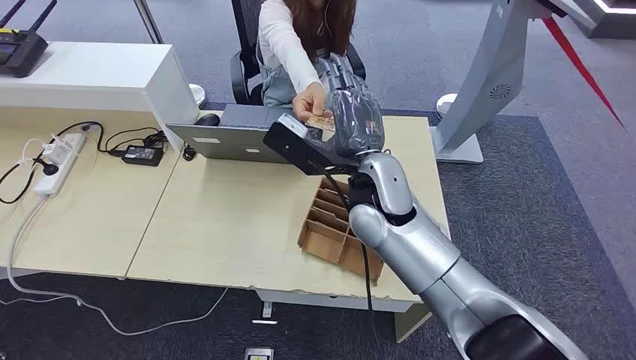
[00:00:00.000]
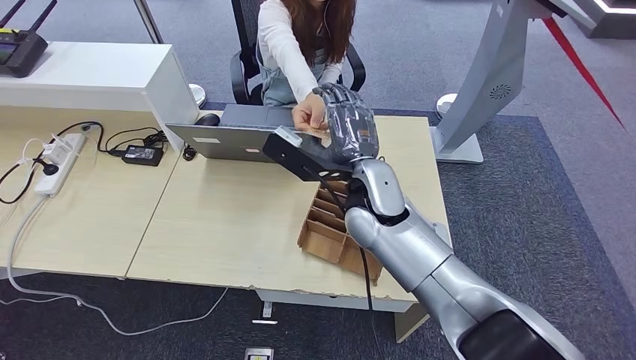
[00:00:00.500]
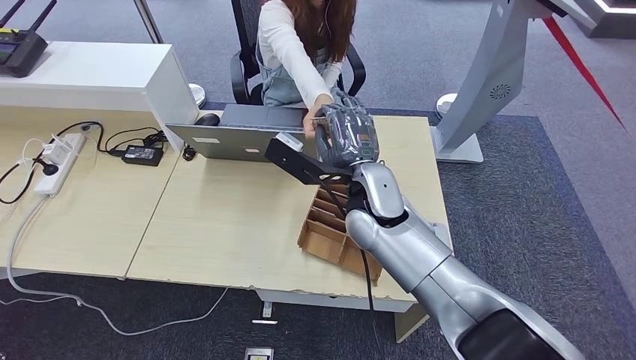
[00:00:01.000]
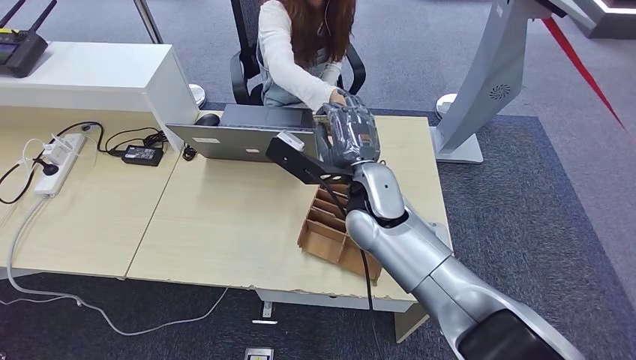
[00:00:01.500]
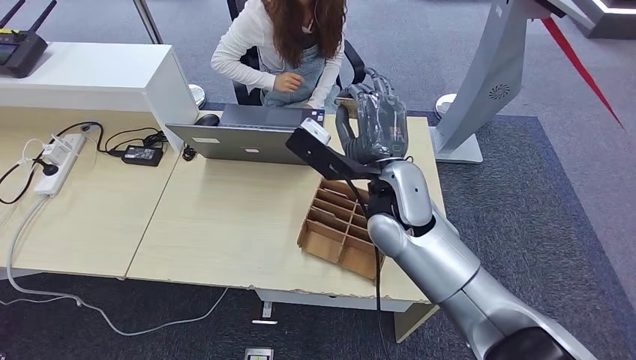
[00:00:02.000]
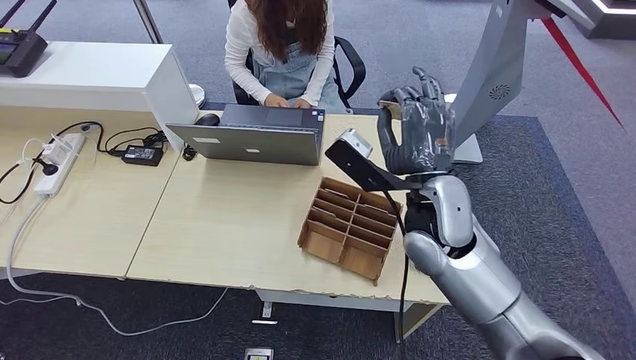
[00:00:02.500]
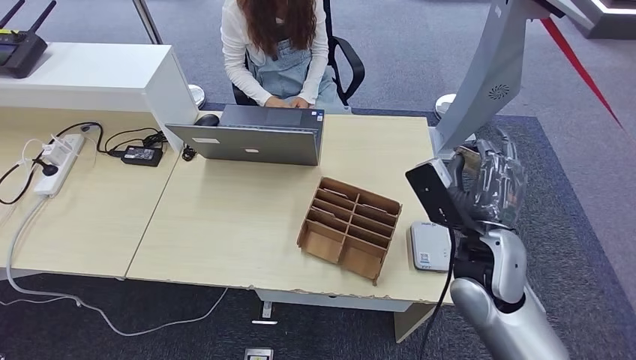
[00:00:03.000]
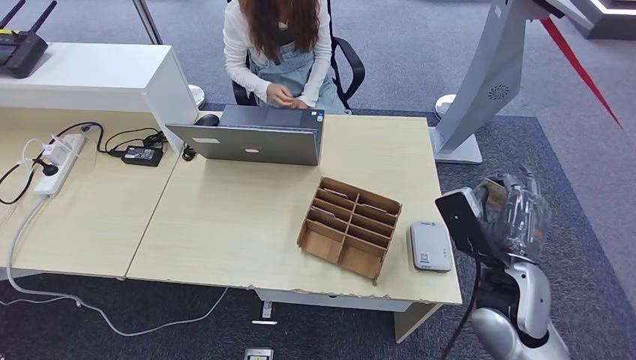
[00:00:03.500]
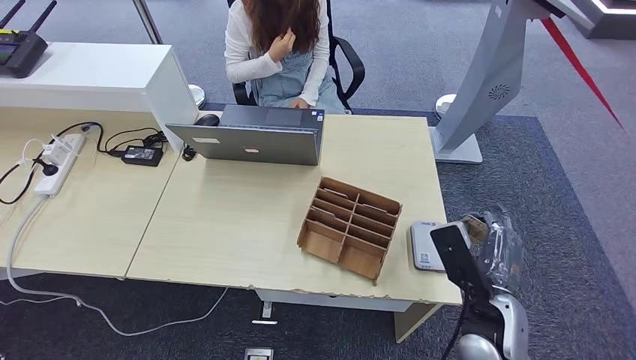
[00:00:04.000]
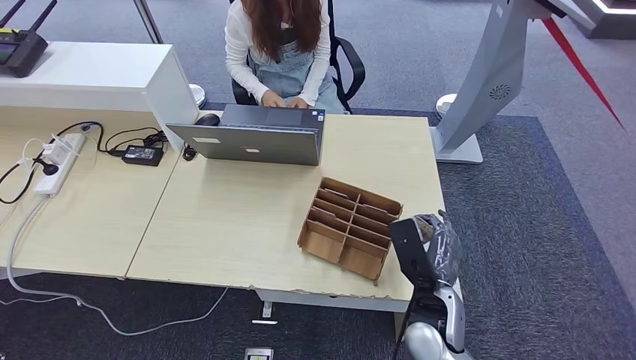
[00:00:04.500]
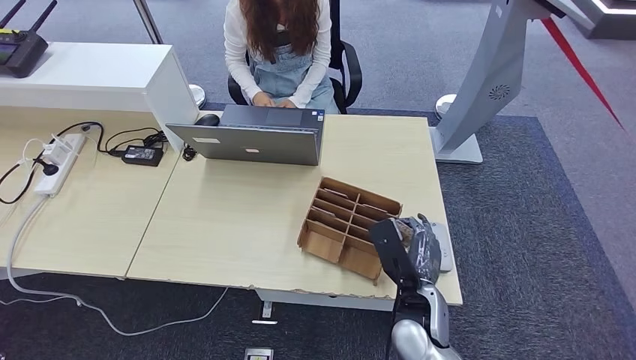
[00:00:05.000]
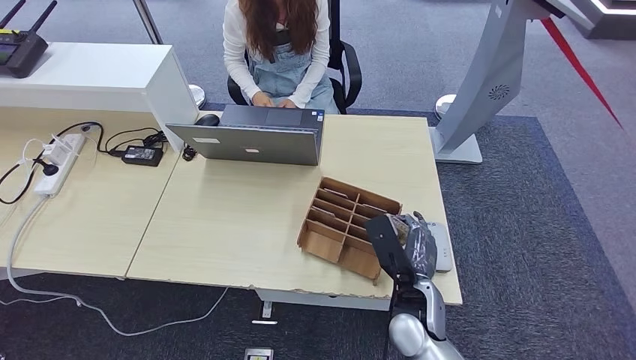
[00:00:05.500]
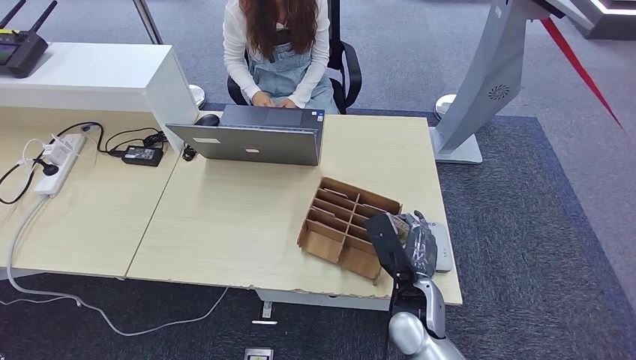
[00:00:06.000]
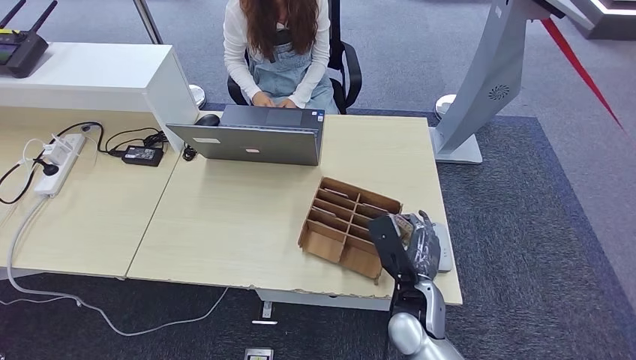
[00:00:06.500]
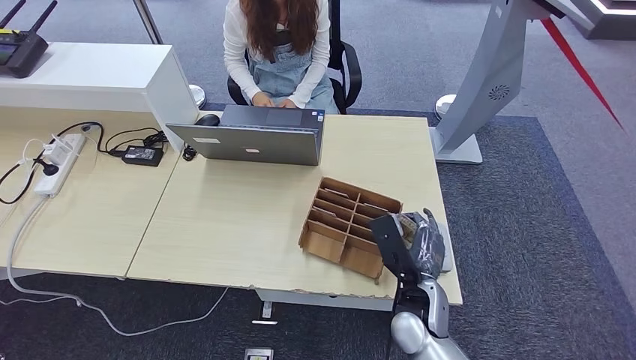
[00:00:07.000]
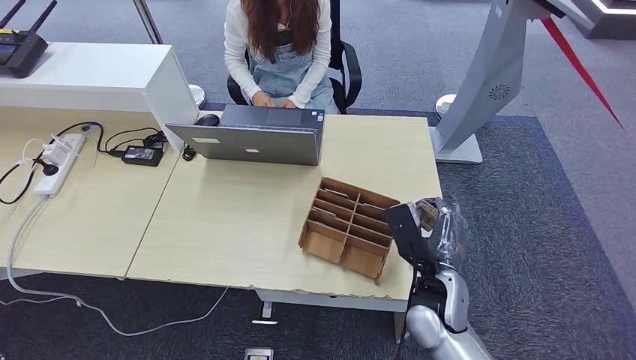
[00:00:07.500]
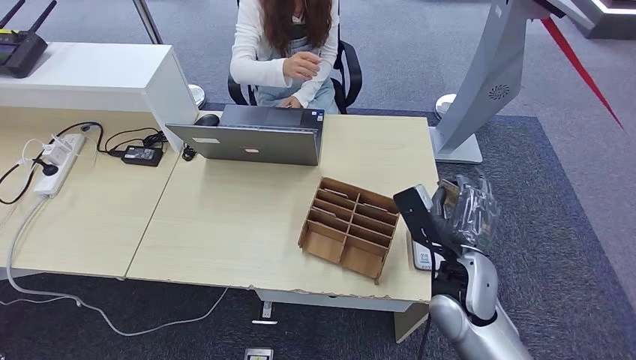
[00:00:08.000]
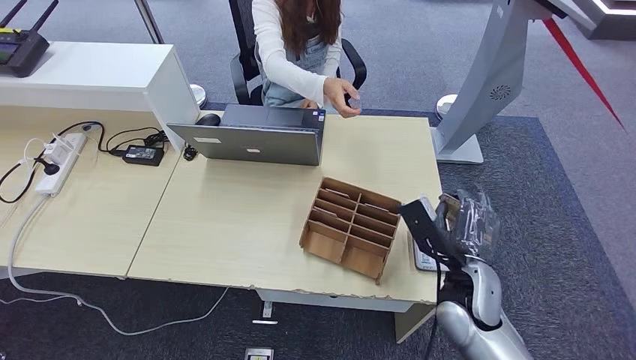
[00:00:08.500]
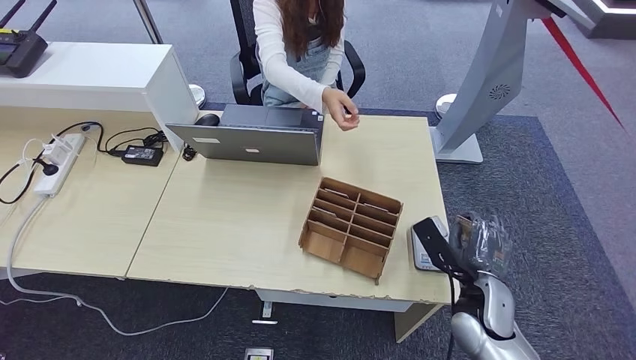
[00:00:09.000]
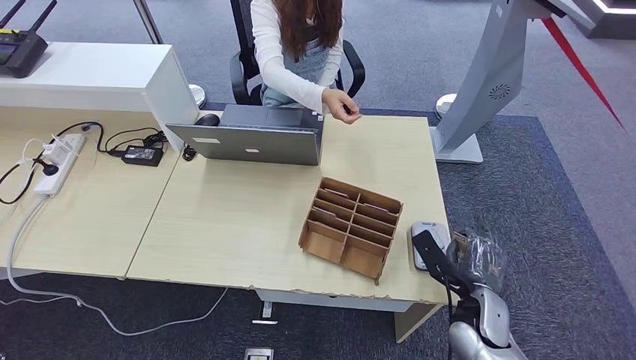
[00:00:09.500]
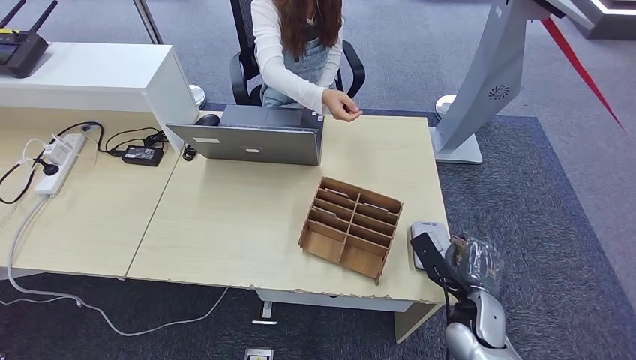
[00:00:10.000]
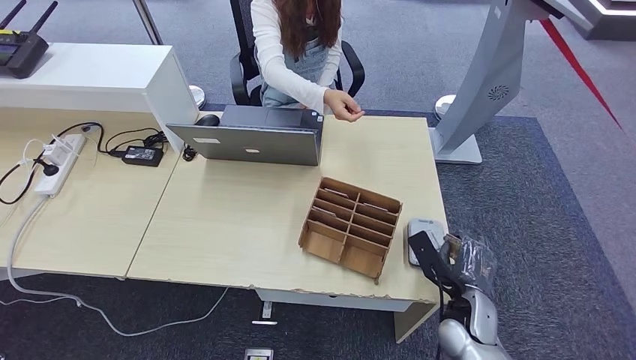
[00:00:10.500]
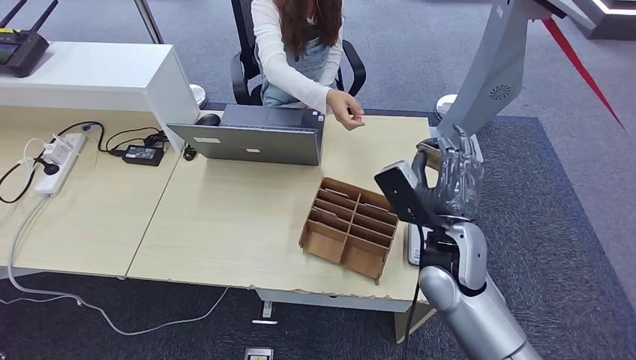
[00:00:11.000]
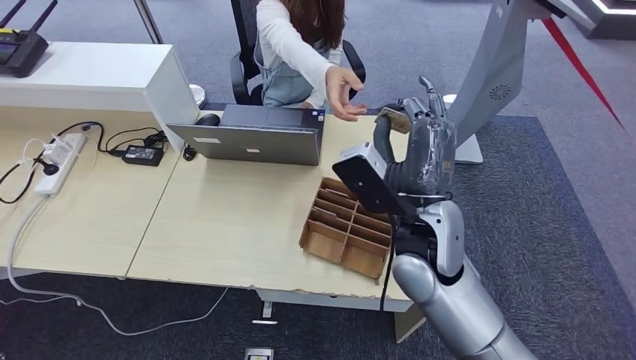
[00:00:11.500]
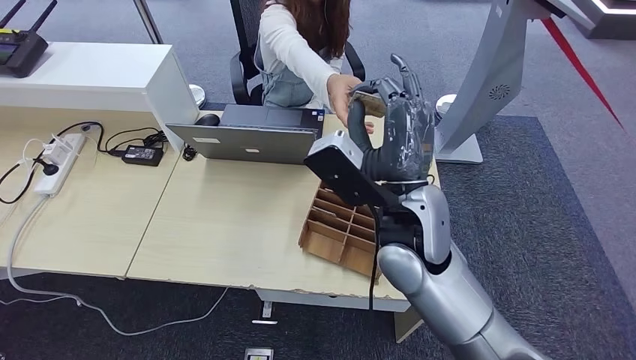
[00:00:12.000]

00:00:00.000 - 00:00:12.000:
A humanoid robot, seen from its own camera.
Step, 00:00:00.000 - 00:00:02.000: Take the ID card from the person's hand.
Step, 00:00:02.500 - 00:00:05.500: Place the ID card on the card reader.
00:00:02.000 - 00:00:04.000: The right hand travels to the right, downward and backward by some 25 cm.
00:00:04.000 - 00:00:06.000: The right hand moves to the left, some 10 cm.
00:00:06.000 - 00:00:08.000: The right hand travels upward and to the right by roughly 10 cm.
00:00:08.000 - 00:00:10.000: The right hand is displaced downward and to the right by approximately 15 cm.
00:00:10.000 - 00:00:12.000: The right hand travels upward and to the left by roughly 30 cm.

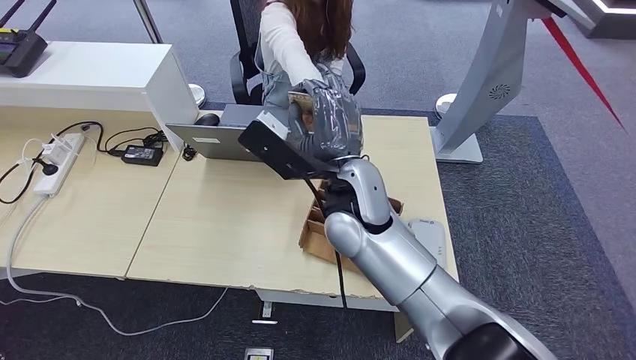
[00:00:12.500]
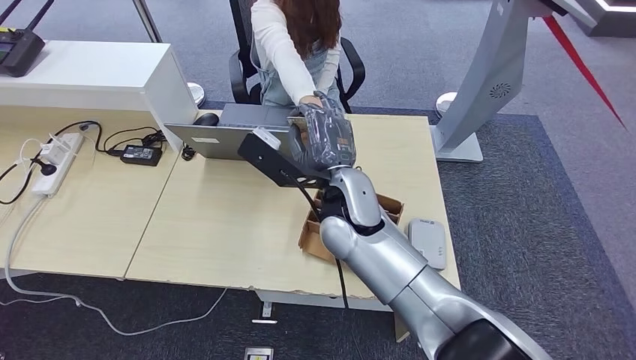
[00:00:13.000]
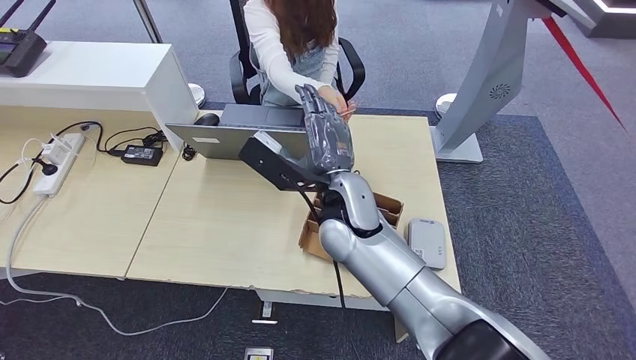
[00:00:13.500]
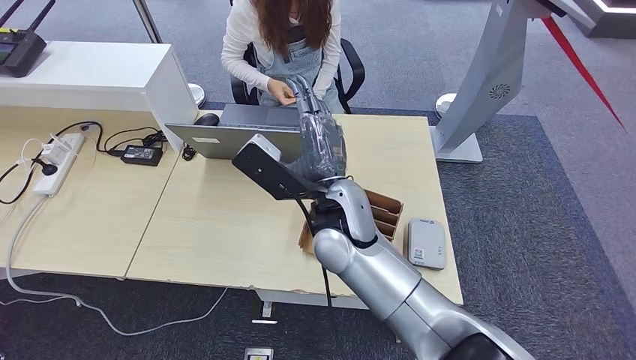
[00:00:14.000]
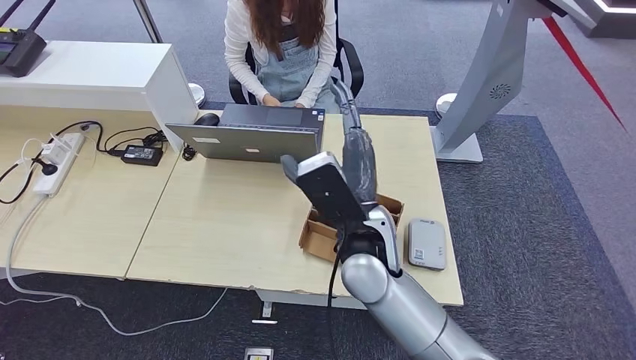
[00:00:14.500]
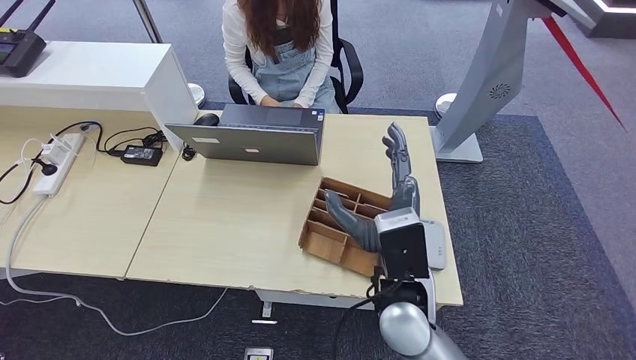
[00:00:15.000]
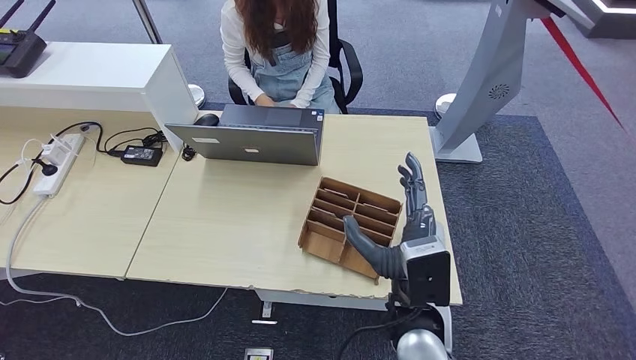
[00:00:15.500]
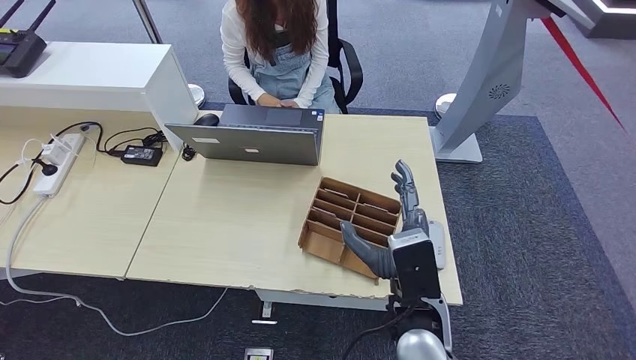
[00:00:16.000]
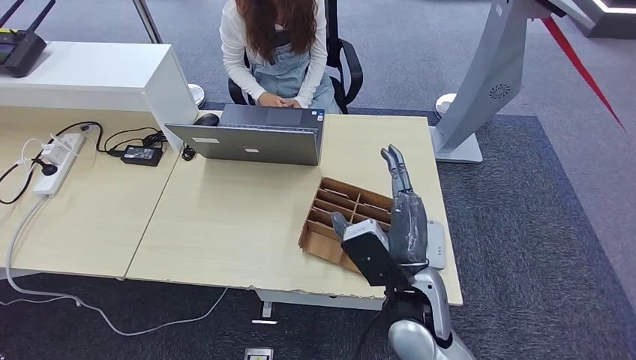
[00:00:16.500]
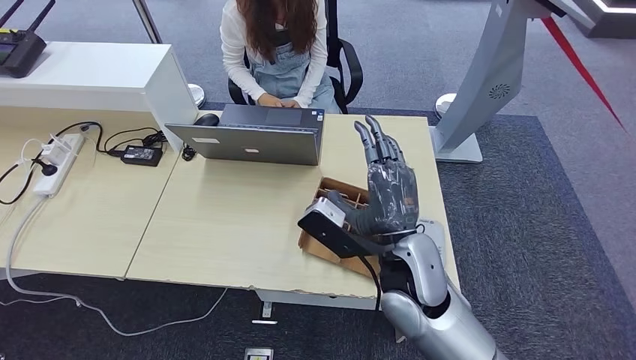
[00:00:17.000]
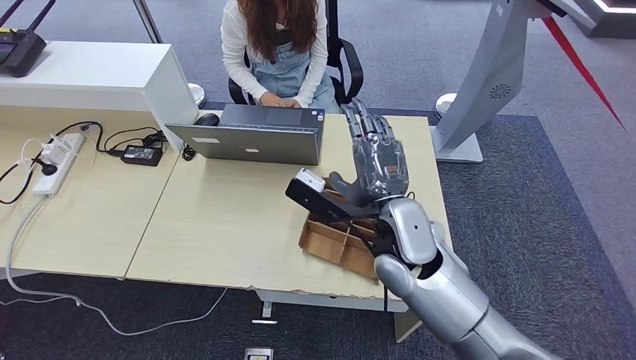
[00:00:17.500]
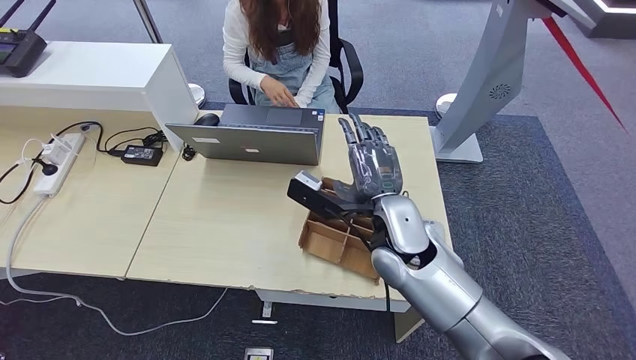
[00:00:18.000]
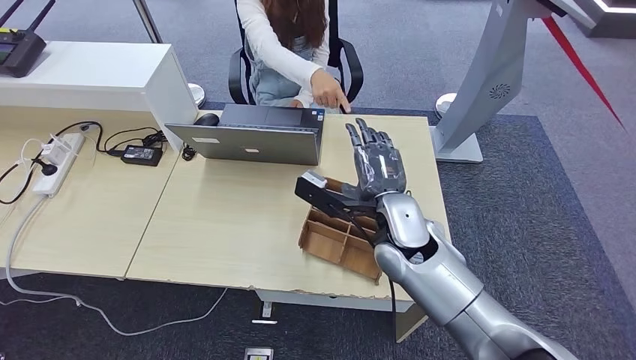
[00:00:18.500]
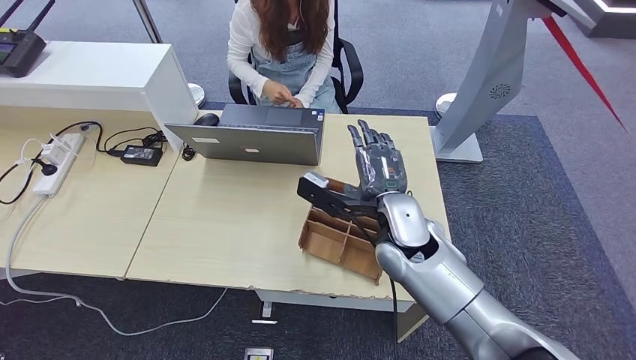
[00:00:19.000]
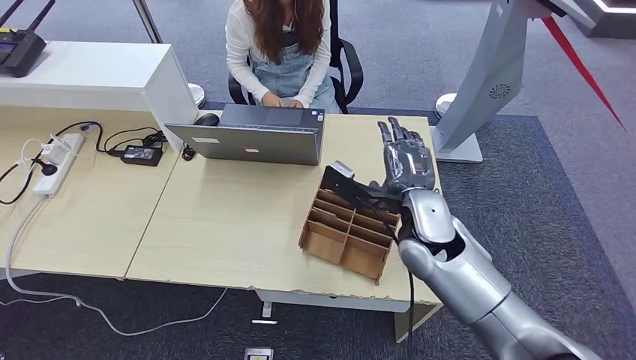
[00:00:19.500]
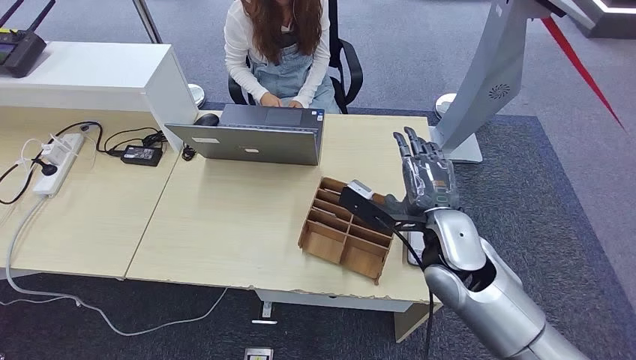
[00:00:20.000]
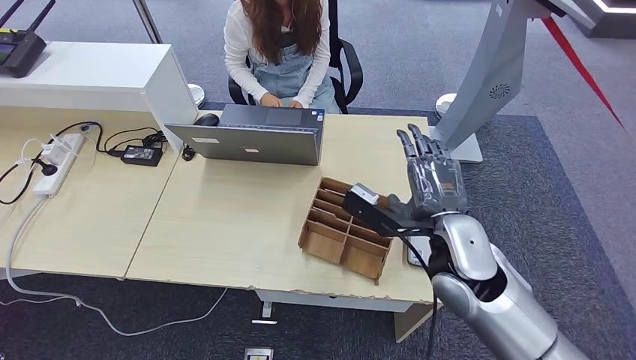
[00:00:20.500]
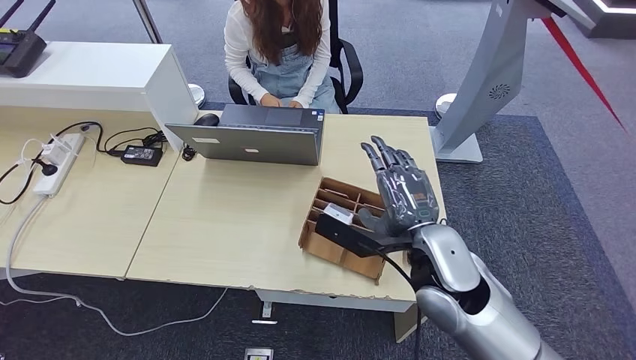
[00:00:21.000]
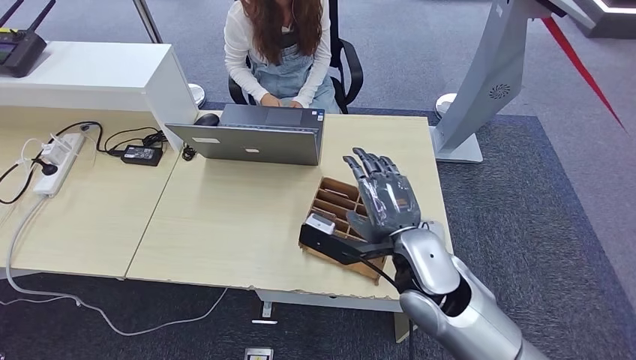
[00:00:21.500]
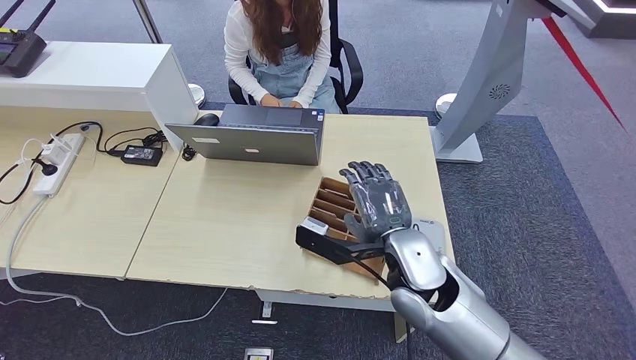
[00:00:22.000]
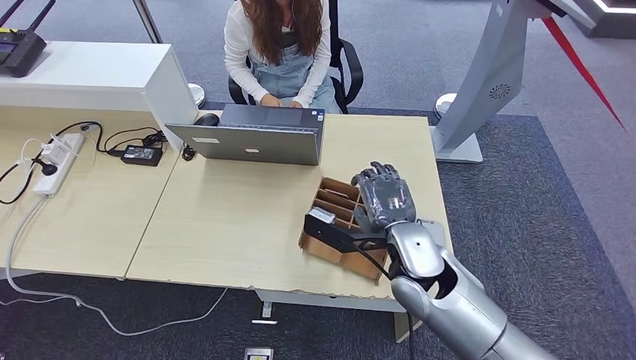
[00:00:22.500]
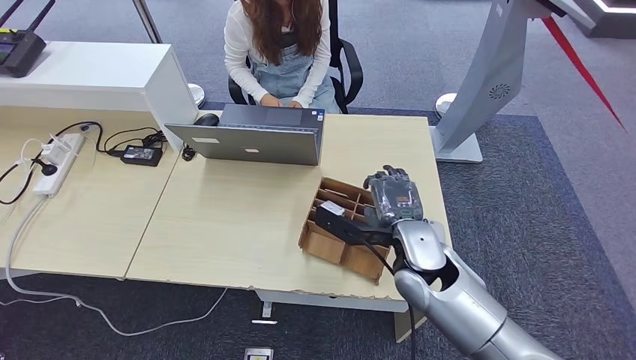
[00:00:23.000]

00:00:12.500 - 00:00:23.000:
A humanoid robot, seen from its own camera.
00:00:12.500 - 00:00:14.500: The right hand changes place by approximately 5 cm.
00:00:14.500 - 00:00:16.500: The right hand moves to the right, downward and backward, some 10 cm.
00:00:16.500 - 00:00:19.000: The right hand moves forward, roughly 10 cm.
00:00:19.000 - 00:00:21.000: The right hand heads backward, covering some 5 cm.
00:00:21.000 - 00:00:23.000: The right hand is displaced downward by approximately 5 cm.
